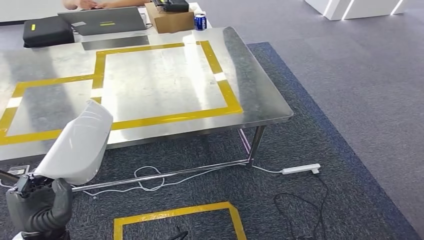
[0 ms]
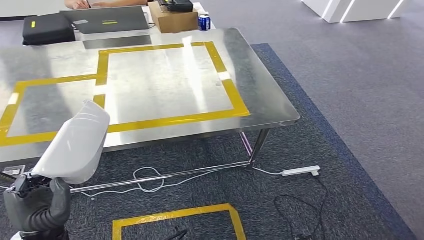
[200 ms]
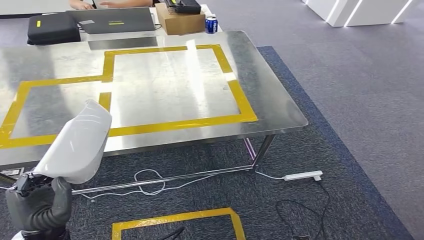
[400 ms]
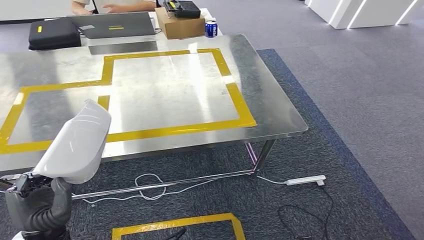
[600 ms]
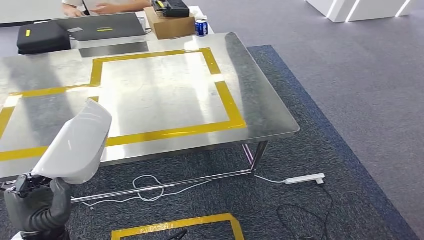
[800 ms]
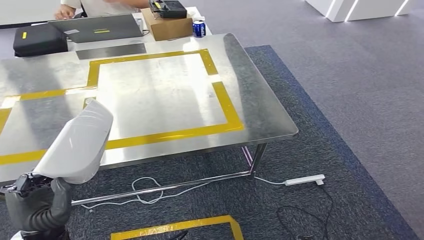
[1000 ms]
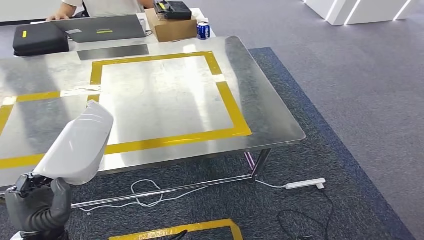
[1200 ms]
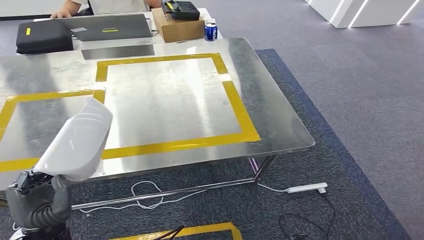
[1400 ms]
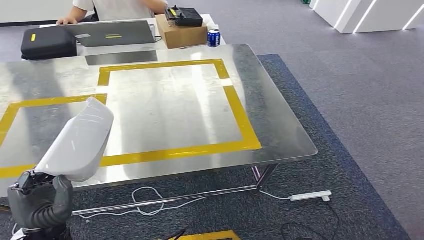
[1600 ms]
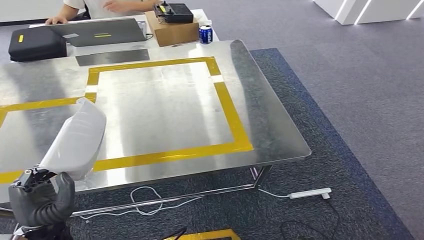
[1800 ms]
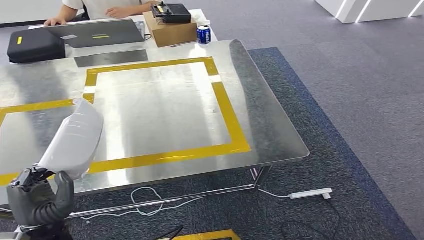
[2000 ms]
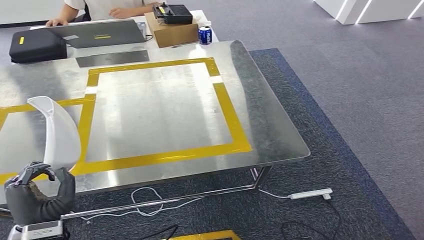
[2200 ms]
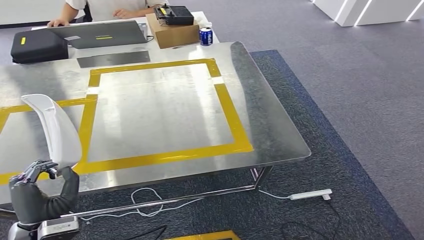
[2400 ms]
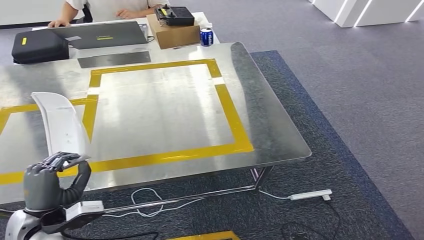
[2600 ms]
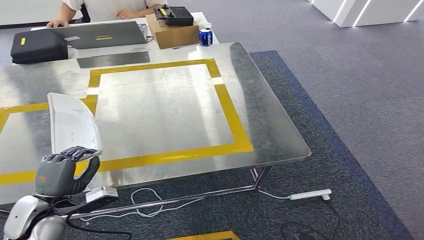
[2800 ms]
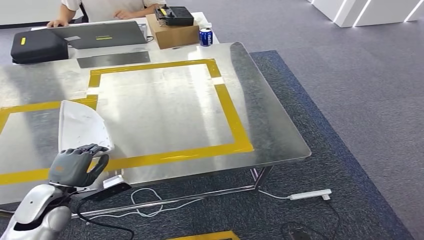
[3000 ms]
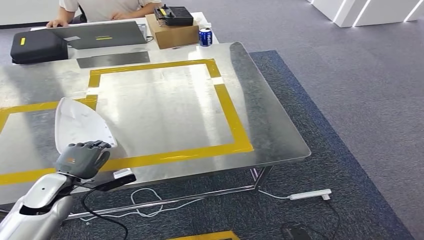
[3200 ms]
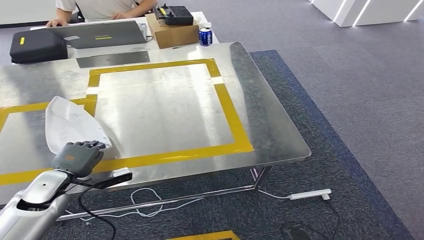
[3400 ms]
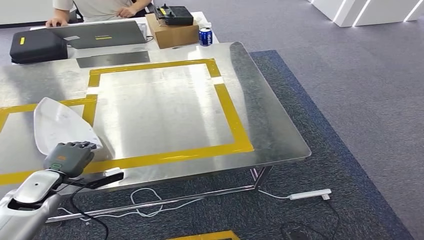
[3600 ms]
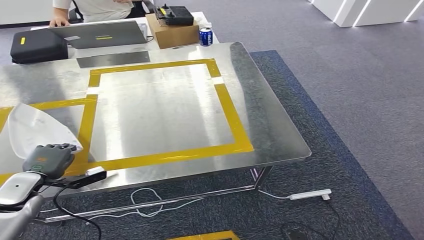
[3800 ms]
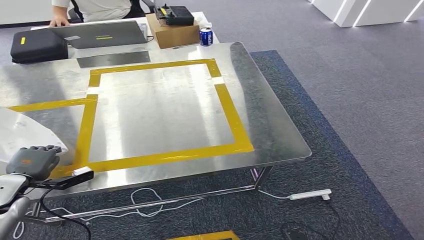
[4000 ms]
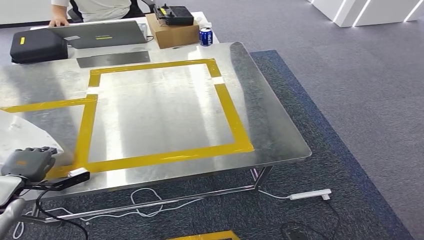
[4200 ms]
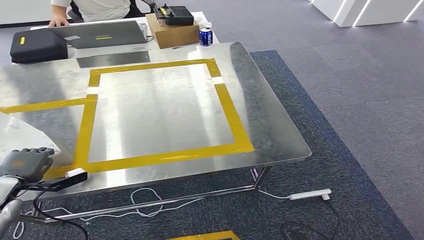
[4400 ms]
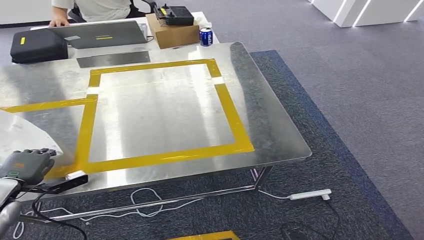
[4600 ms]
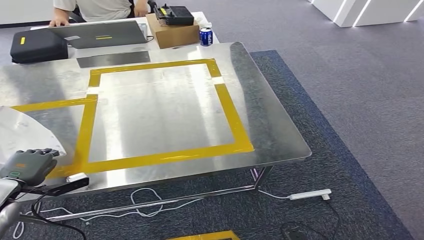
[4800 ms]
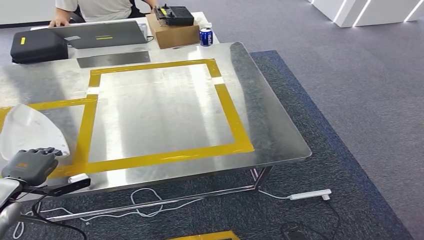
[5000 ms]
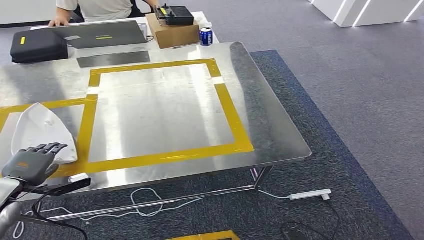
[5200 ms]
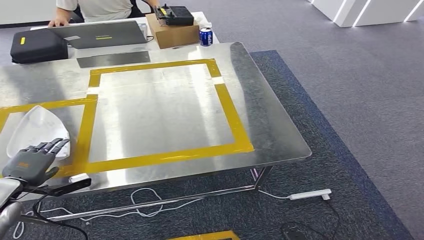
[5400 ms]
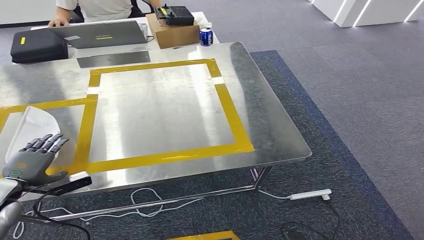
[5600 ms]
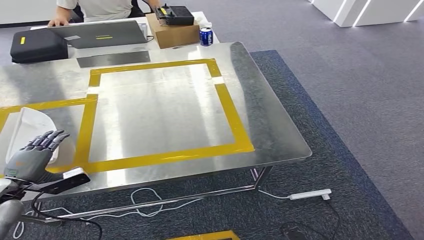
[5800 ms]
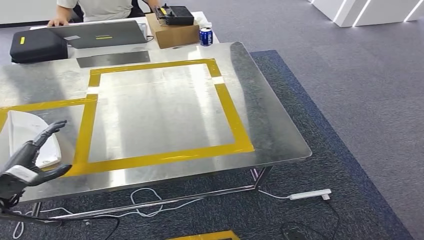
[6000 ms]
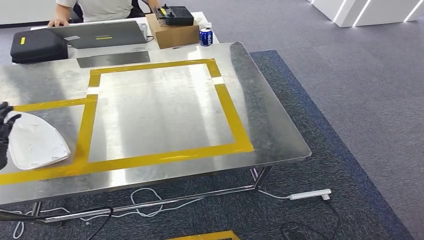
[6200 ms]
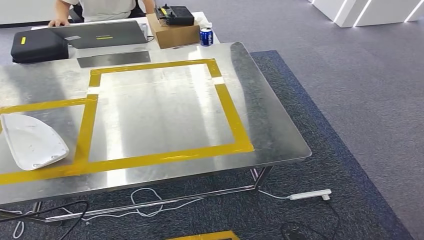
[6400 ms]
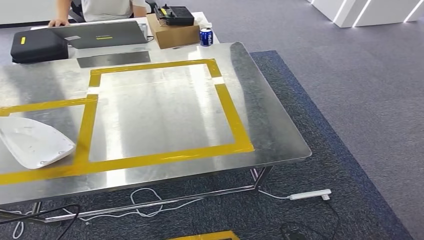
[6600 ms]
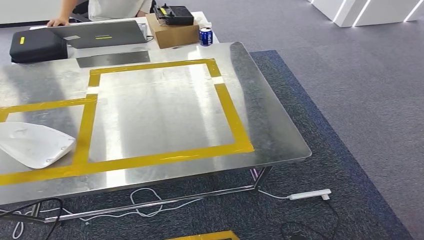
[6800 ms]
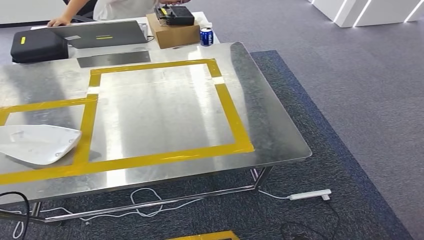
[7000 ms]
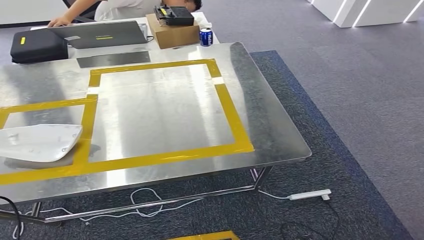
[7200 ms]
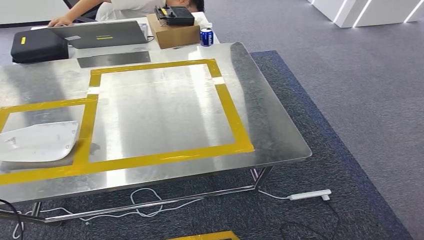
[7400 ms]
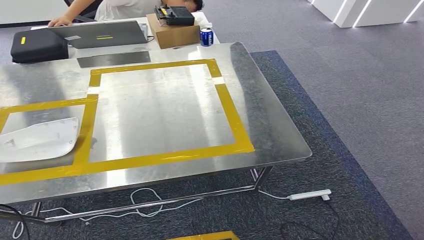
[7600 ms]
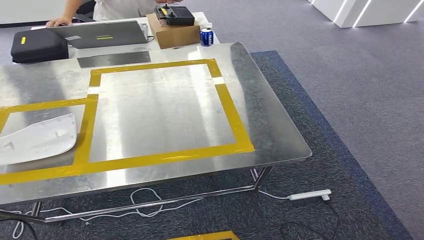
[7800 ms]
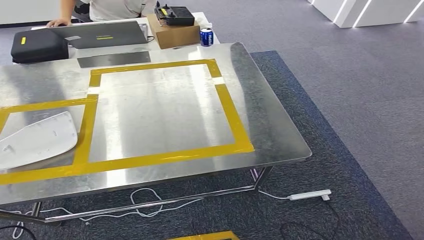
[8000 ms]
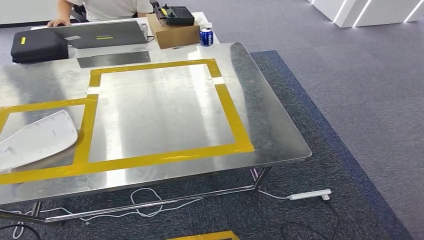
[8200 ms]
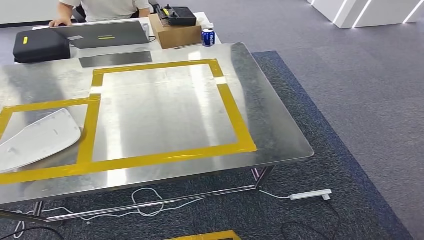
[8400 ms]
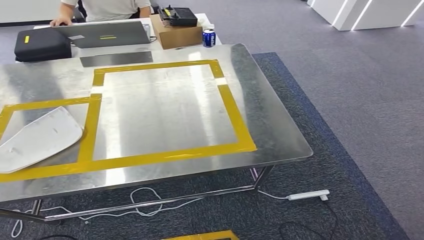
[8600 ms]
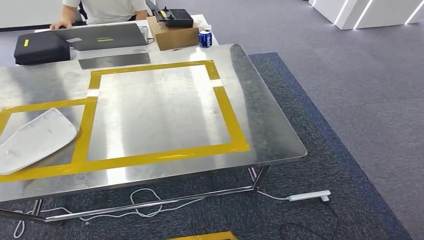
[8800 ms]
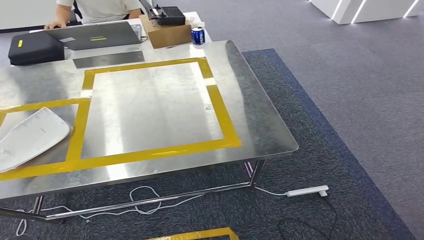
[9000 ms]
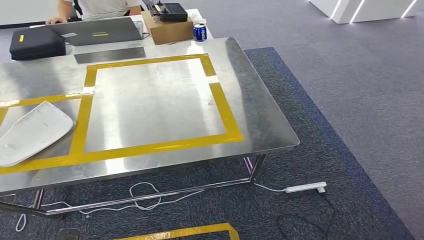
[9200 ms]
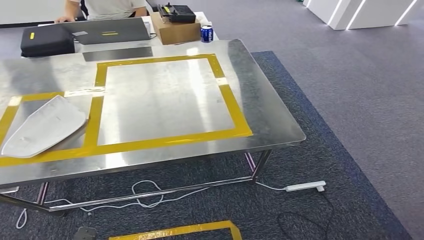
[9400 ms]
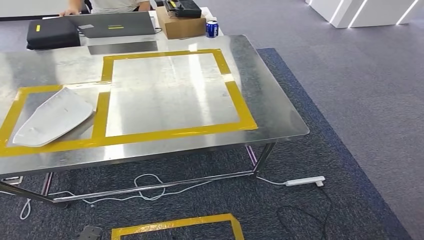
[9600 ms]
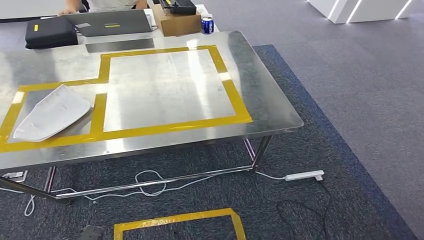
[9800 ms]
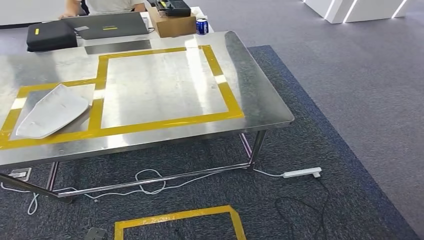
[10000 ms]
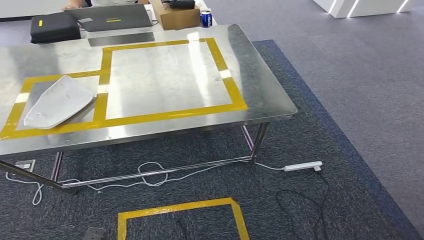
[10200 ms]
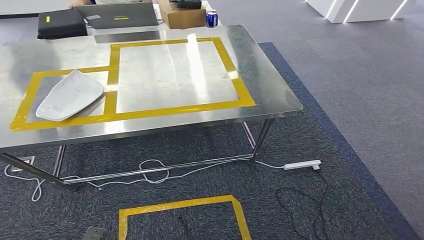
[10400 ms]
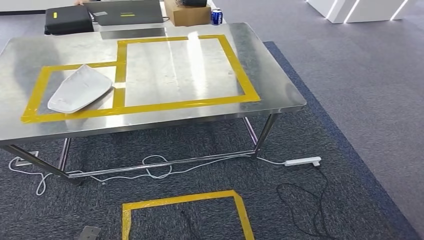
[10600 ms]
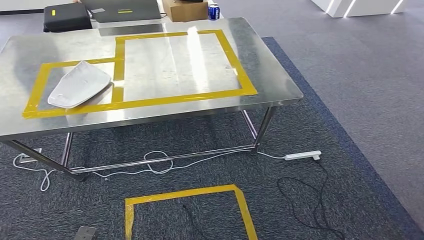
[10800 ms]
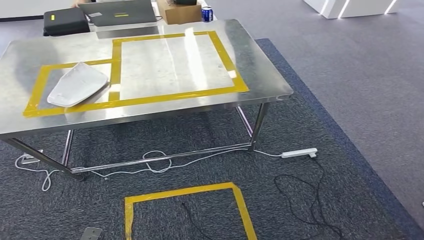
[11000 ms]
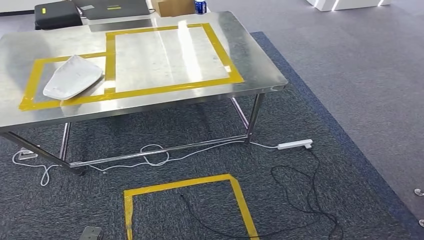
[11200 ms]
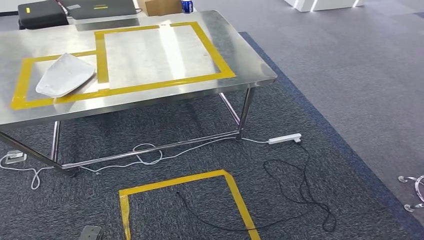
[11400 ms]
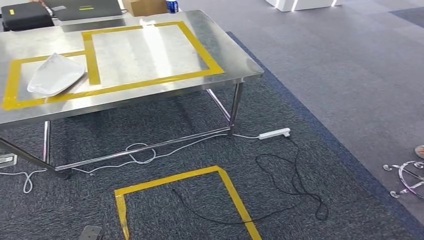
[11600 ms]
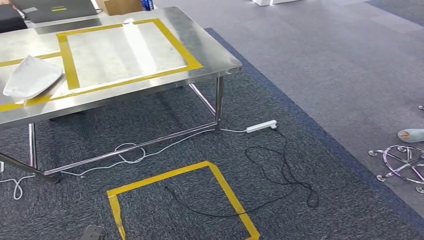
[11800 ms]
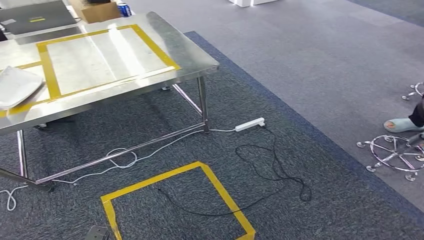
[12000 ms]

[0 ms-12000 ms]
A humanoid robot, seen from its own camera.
Step, 0 ms to 8000 ms: Insert the small component into the corresponding slot on the workbench.
3000 ms to 4400 ms: The left hand travels to the left by some 15 cm.
4400 ms to 6000 ms: The left hand changes place by some 5 cm.
6000 ms to 7600 ms: The left hand goes approximately 25 cm backward and to the left.
7600 ms to 9000 ms: The left hand travels downward and to the right by roughly 35 cm.

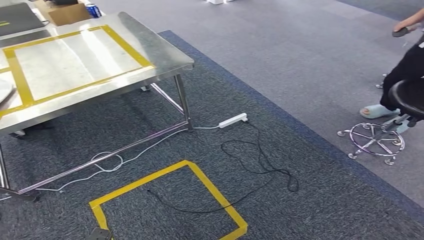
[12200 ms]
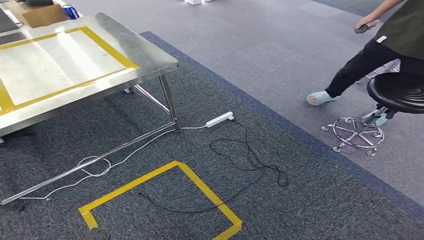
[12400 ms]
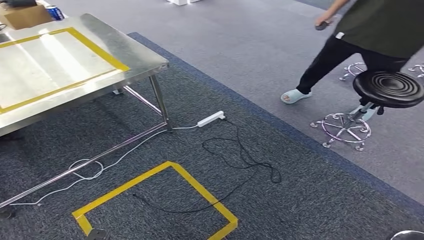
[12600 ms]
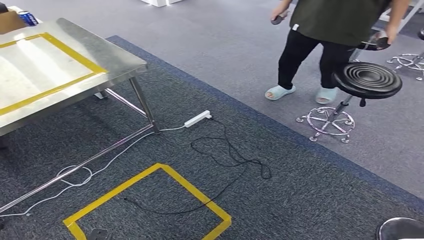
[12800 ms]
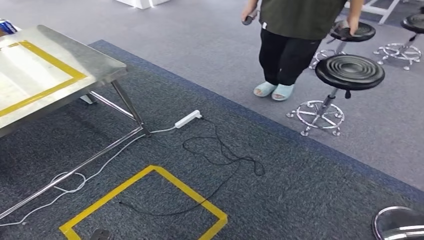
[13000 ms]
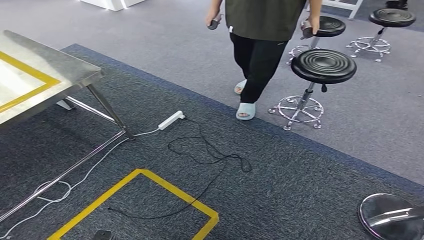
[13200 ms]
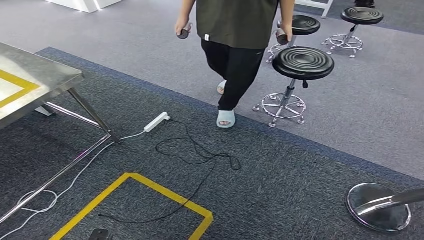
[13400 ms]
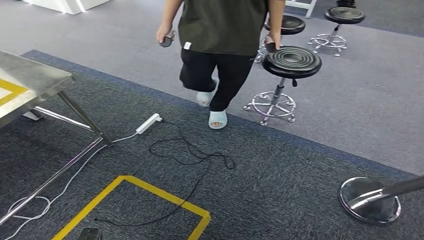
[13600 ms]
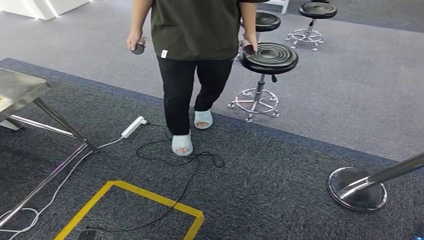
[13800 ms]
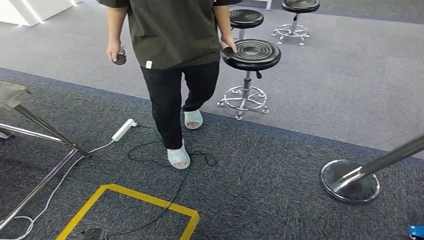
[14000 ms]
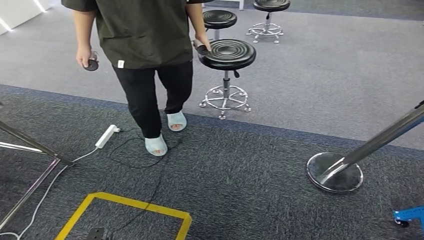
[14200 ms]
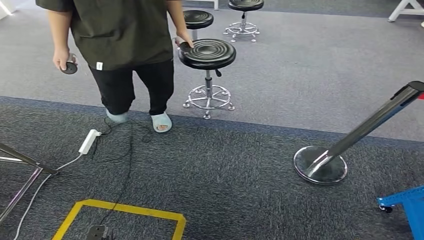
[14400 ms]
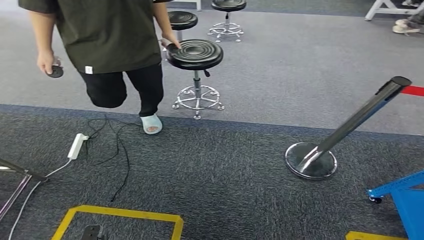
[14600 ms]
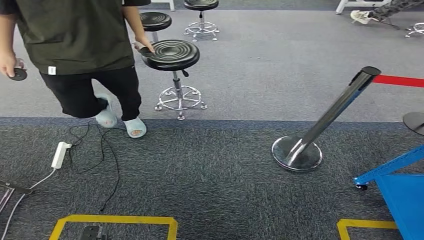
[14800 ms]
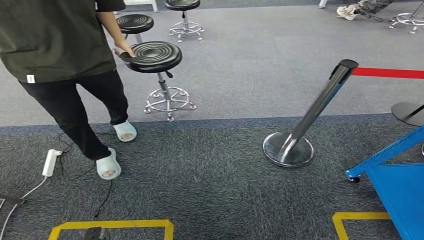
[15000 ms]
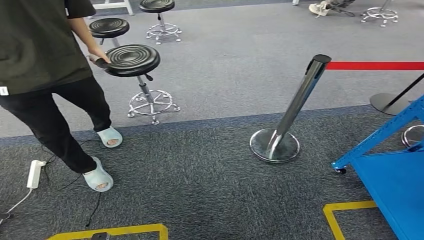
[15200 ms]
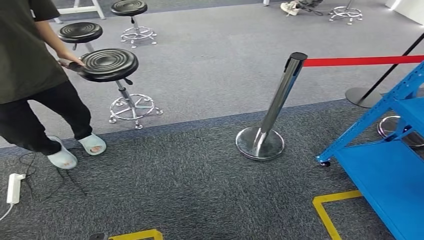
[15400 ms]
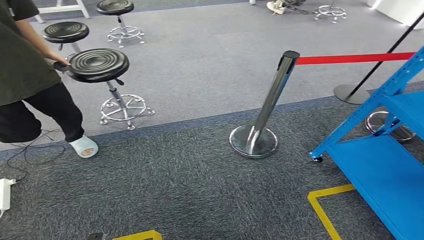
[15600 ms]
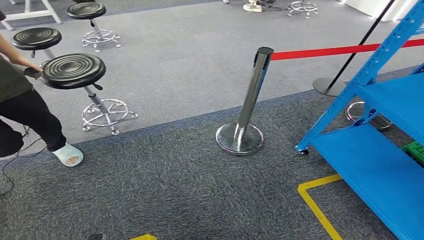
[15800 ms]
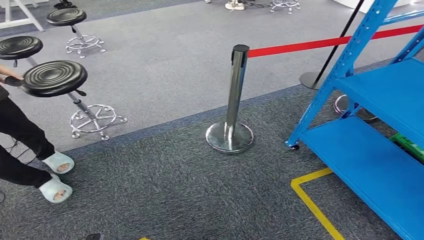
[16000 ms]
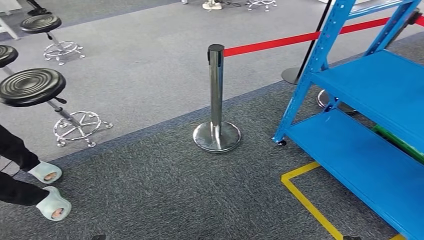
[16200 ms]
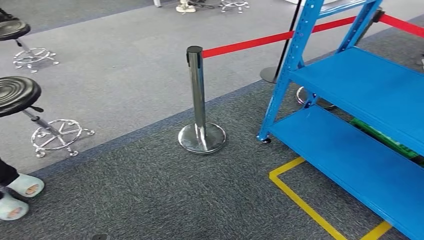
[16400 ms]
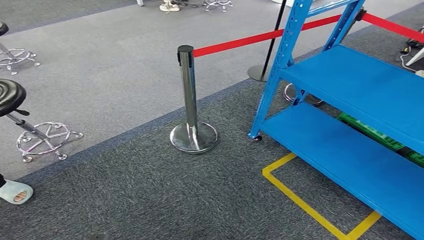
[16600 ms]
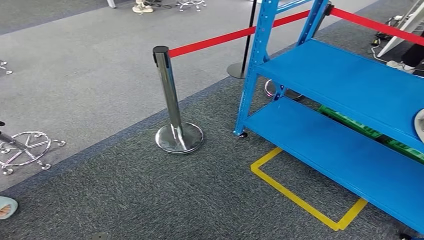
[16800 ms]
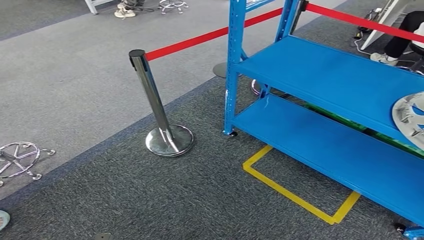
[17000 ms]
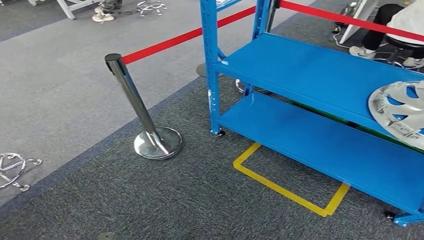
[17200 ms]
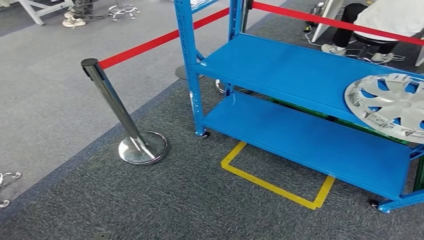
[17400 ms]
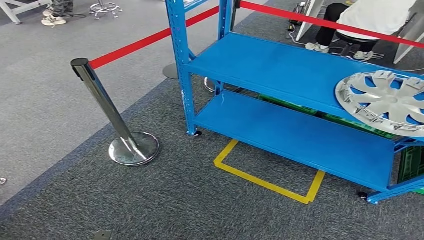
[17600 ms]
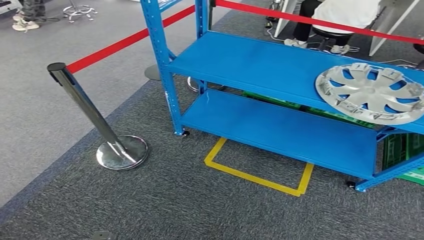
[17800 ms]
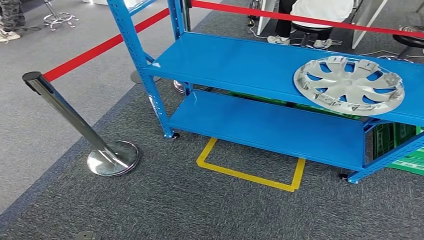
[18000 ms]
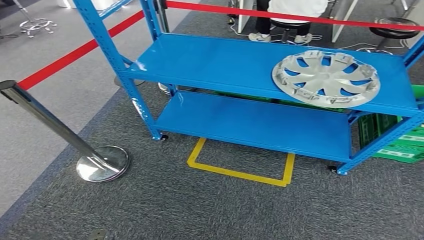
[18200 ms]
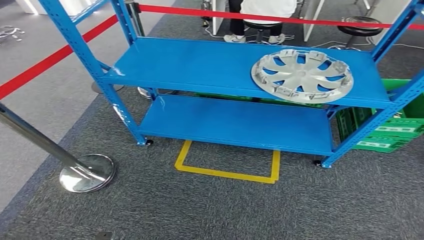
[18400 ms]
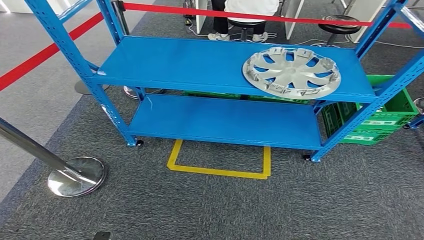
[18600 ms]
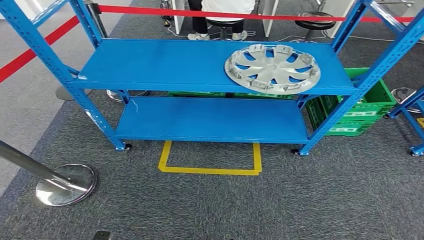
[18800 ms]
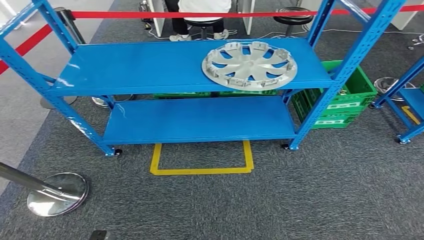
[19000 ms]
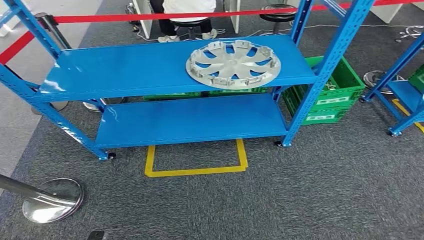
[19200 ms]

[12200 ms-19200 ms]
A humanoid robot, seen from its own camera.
Step, 12200 ms to 19000 ms: Return to the initial position at the workbench.
